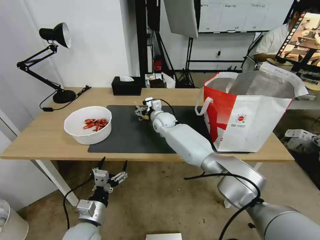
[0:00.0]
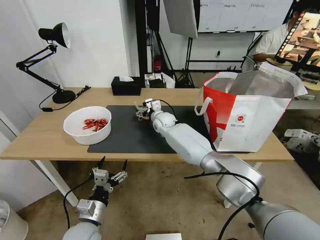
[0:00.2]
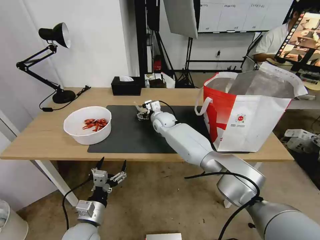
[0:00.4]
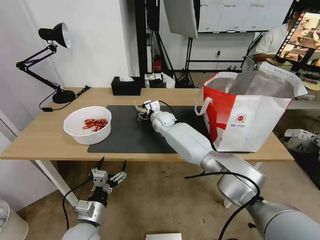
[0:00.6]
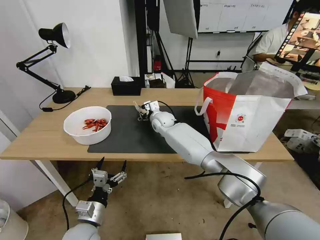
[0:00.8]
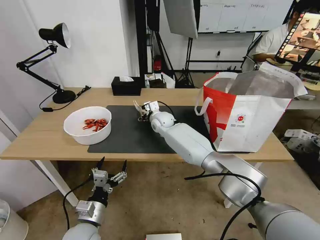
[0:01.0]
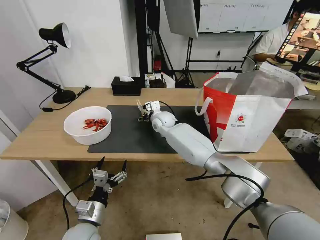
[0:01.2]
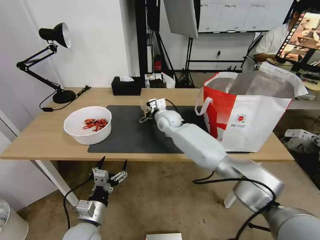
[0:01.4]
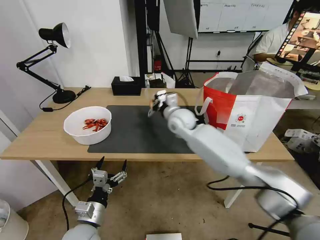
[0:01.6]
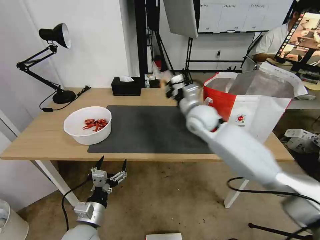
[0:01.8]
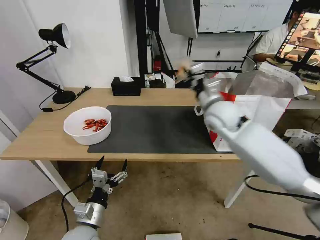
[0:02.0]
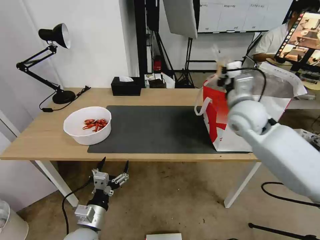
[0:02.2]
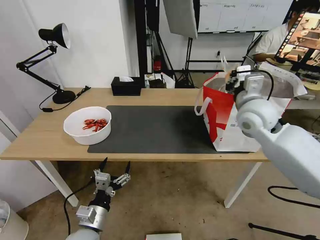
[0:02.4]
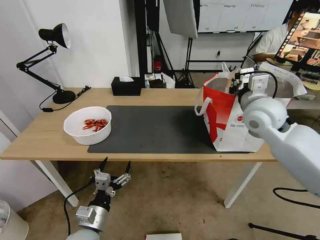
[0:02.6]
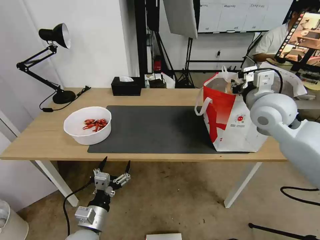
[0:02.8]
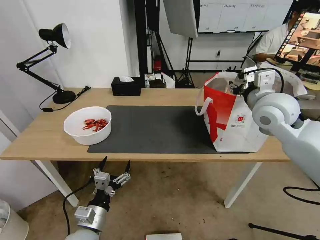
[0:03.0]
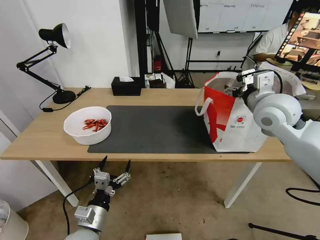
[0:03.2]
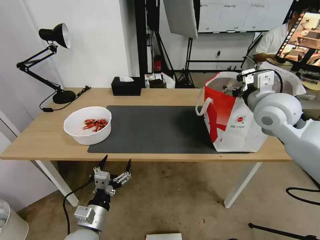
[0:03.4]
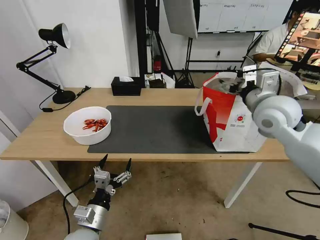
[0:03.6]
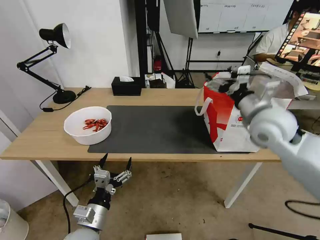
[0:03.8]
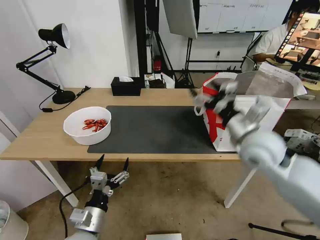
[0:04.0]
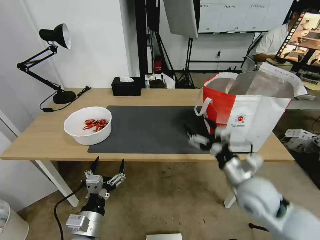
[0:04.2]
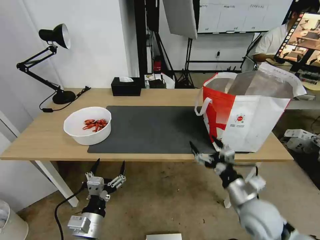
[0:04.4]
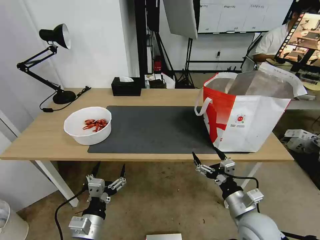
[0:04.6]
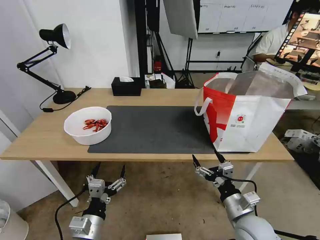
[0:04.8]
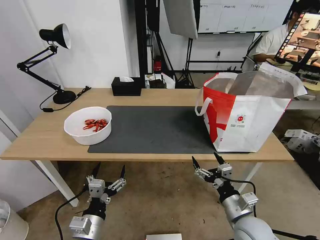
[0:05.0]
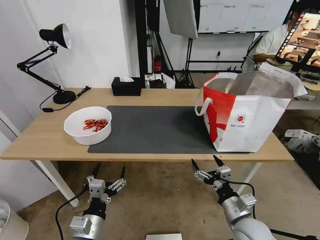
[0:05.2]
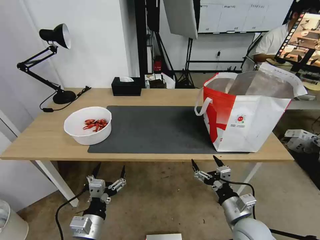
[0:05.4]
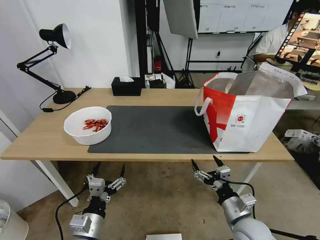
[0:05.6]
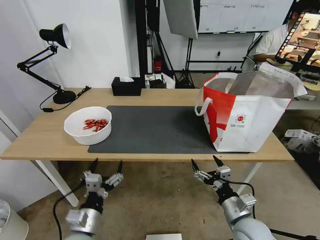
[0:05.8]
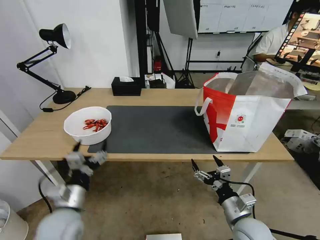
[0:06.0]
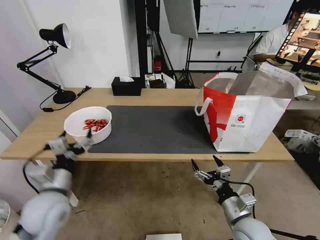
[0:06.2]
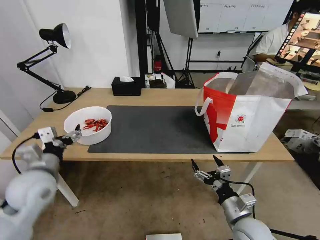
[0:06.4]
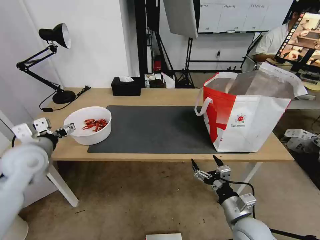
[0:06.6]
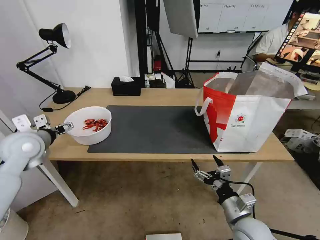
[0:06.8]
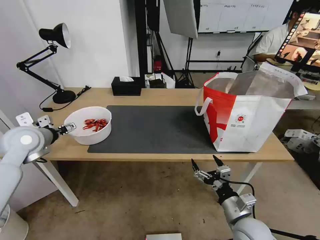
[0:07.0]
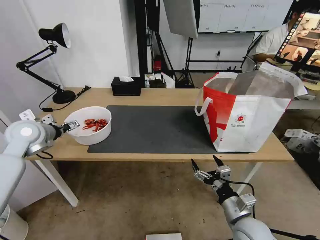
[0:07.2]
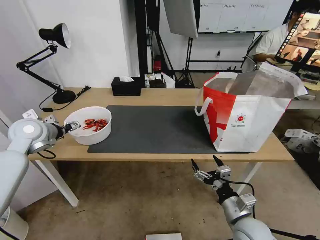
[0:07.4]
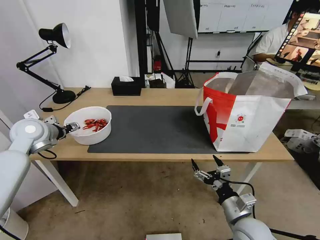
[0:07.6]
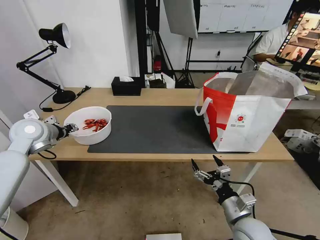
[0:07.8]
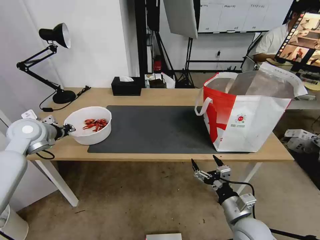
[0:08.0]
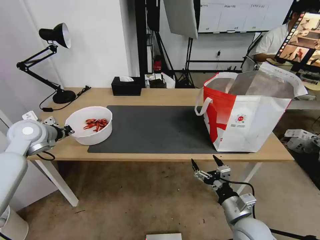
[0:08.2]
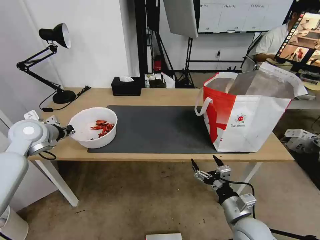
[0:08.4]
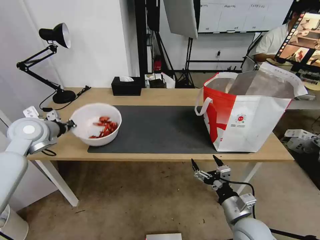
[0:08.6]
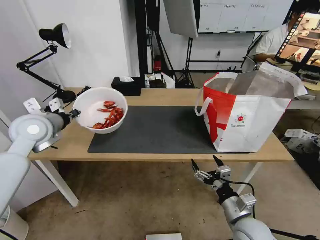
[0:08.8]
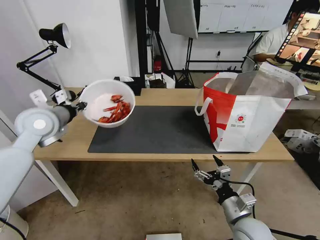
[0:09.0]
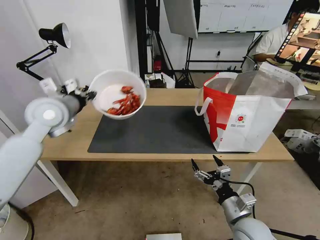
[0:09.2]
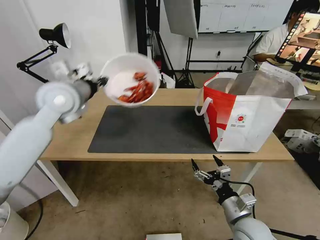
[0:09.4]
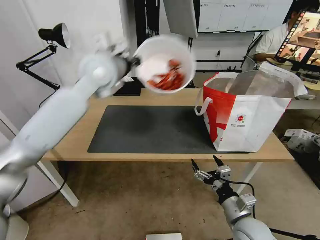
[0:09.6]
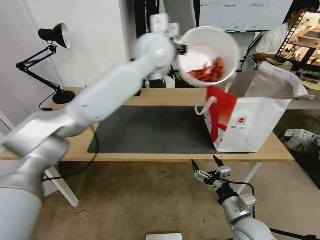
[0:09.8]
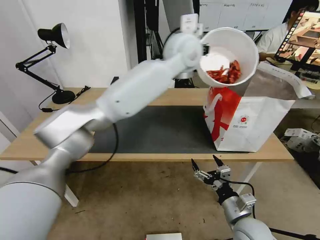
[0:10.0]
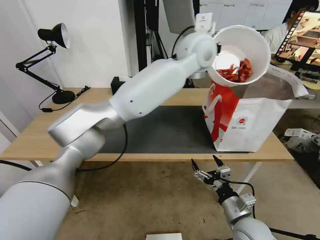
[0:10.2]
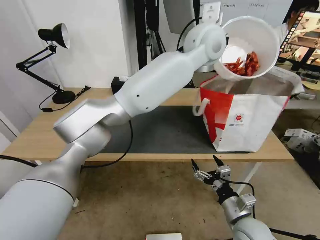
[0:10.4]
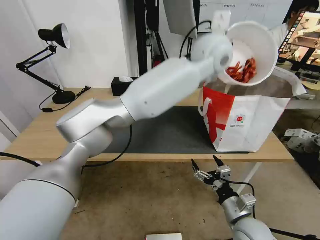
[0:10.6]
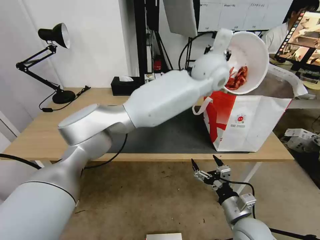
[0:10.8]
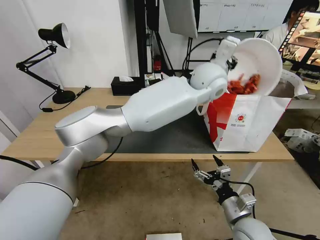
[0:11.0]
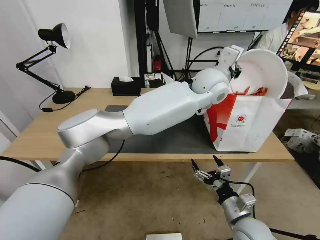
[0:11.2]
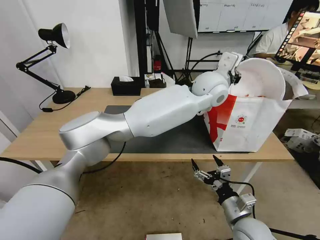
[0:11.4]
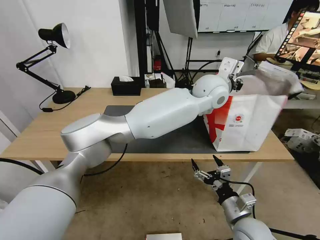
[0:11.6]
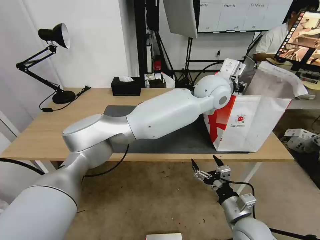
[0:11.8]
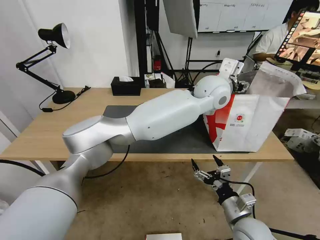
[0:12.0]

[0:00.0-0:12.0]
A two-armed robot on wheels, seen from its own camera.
Task of the whole recording: Pick up the trash from the table and place it into the takeout bag.
0:00.0 to 0:01.6: The right gripper shifts roughly 10 cm upward, backward and to the right, and closes its fingers.
0:01.6 to 0:03.0: The right gripper shifts roughly 25 cm to the right, upward and backward, and opens its fingers.
0:03.0 to 0:04.4: The right gripper heads downward and backward, covering roughly 30 cm.
0:04.4 to 0:06.0: The left gripper travels forward by roughly 5 cm; the right gripper moves downward, approximately 5 cm.
0:06.0 to 0:07.6: The left gripper is displaced forward, to the left and upward by approximately 30 cm.
0:07.6 to 0:09.0: The left gripper is displaced to the right and upward by about 10 cm, and closes up.
0:09.0 to 0:10.4: The left gripper moves to the right, approximately 40 cm.
0:10.4 to 0:12.0: The left gripper is displaced downward by some 10 cm, and opens.

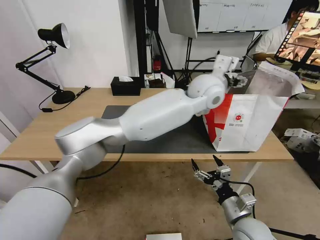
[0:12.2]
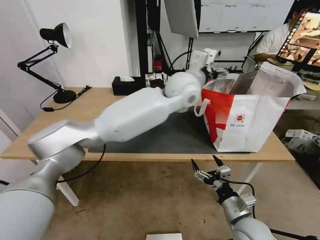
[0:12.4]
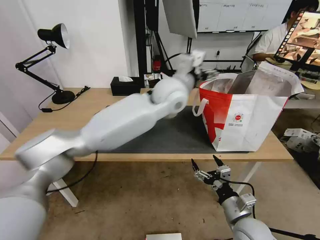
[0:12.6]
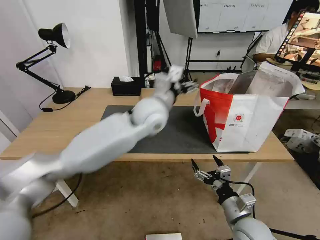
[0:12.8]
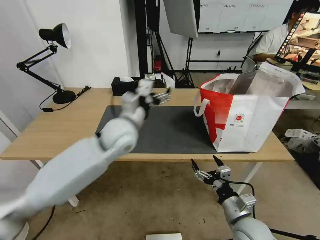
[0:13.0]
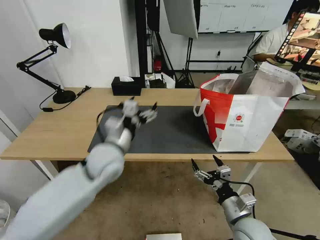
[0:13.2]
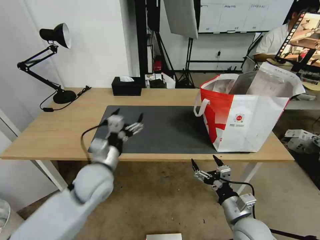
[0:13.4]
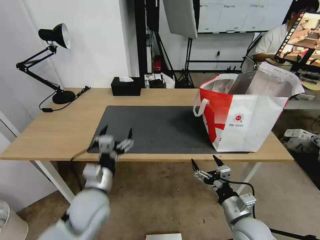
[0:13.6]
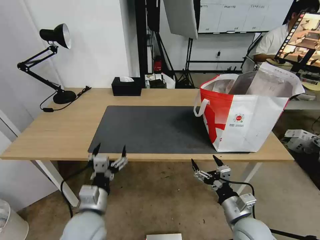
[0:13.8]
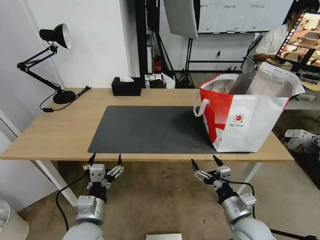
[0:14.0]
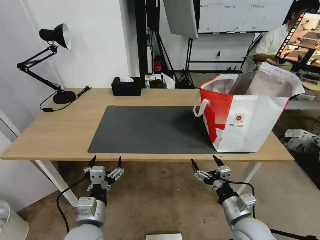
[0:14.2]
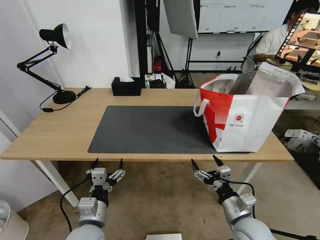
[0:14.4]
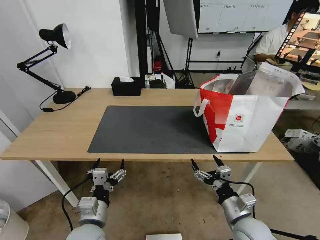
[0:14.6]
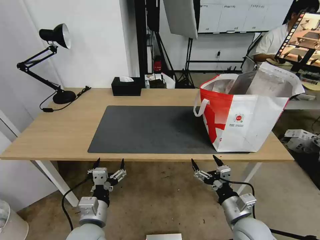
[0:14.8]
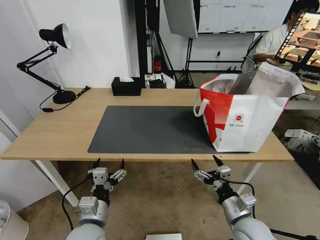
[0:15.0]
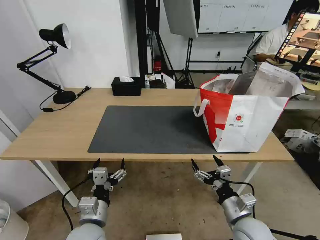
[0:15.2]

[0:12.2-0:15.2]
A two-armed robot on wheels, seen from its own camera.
Task of the whole recording: Pick up the trash from the table and place it into the takeout bag.
0:12.2 to 0:13.8: The left gripper heads to the left, backward and downward, covering some 50 cm.
0:13.8 to 0:15.2: The grippers make only small movements.
